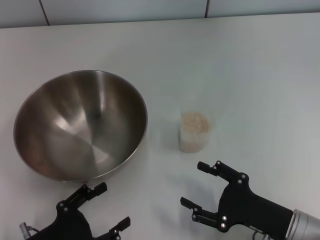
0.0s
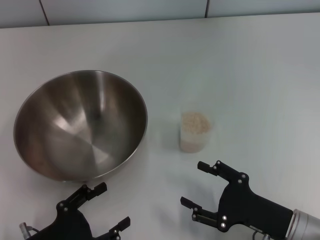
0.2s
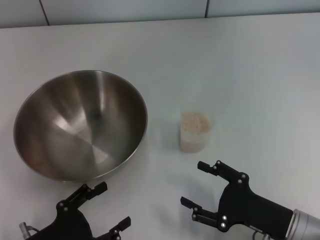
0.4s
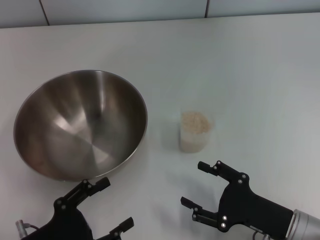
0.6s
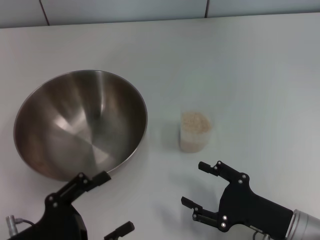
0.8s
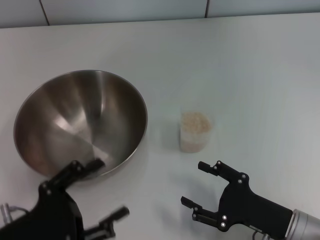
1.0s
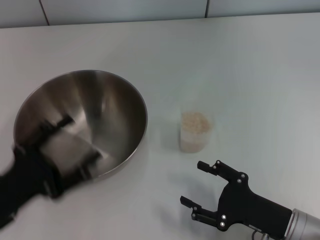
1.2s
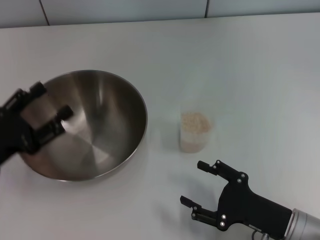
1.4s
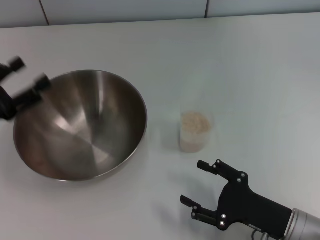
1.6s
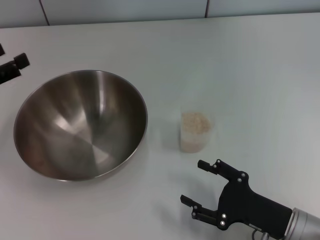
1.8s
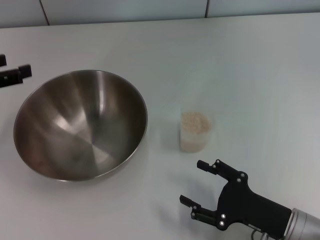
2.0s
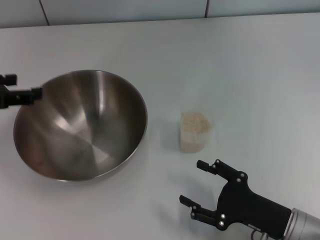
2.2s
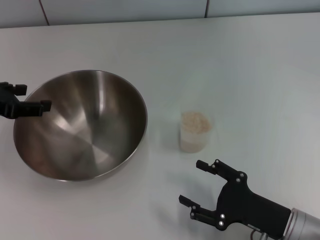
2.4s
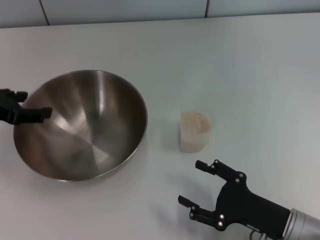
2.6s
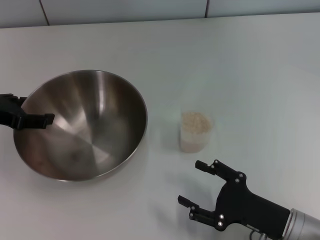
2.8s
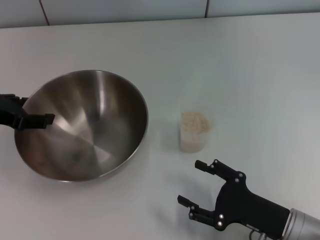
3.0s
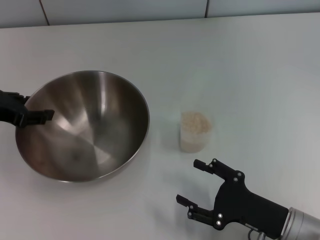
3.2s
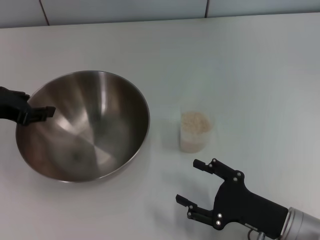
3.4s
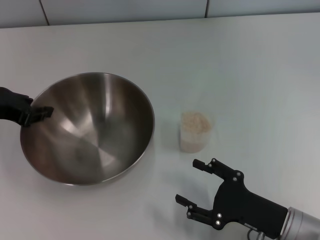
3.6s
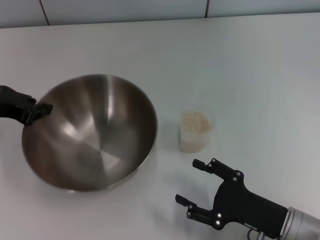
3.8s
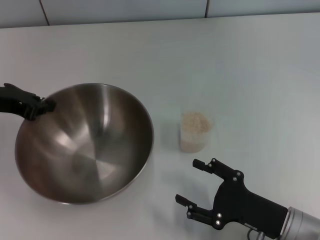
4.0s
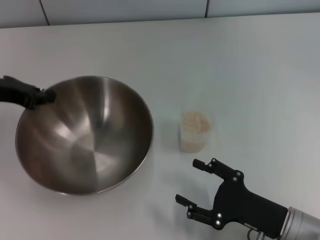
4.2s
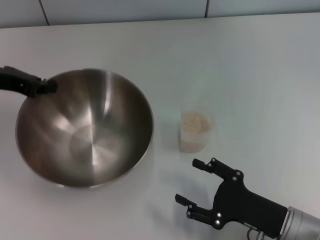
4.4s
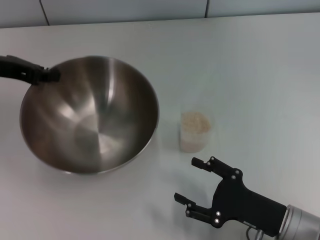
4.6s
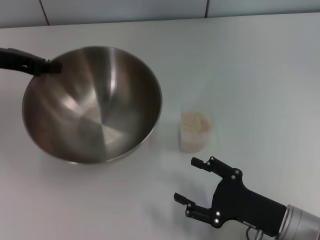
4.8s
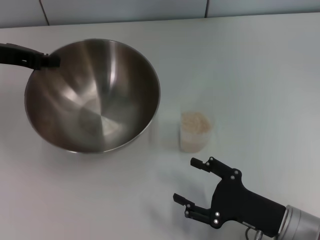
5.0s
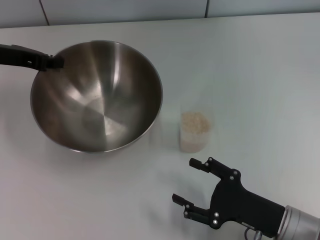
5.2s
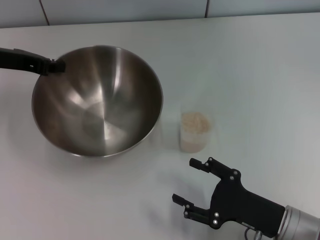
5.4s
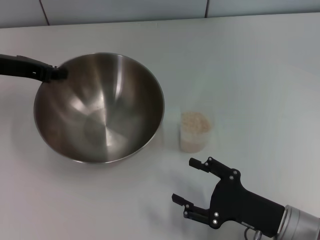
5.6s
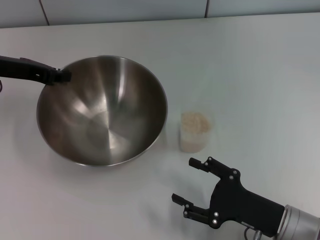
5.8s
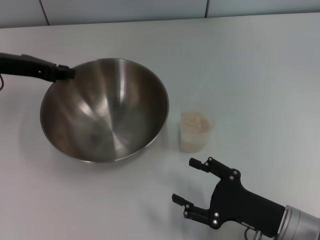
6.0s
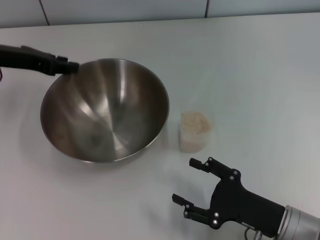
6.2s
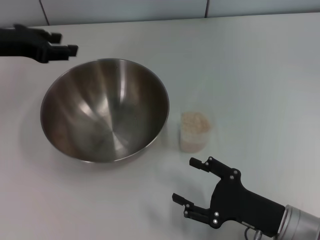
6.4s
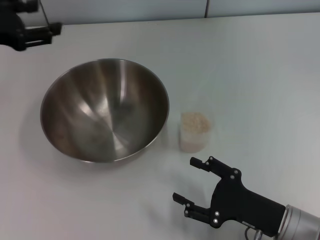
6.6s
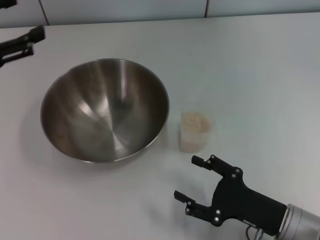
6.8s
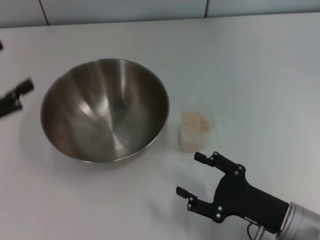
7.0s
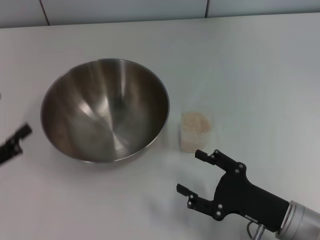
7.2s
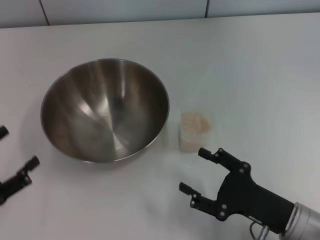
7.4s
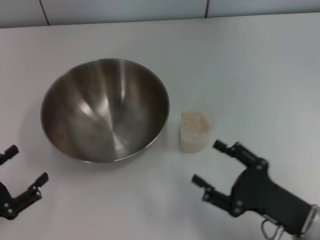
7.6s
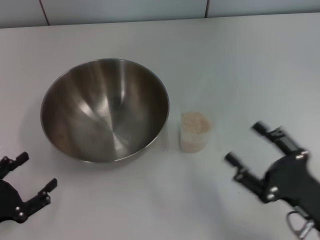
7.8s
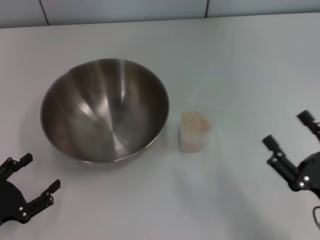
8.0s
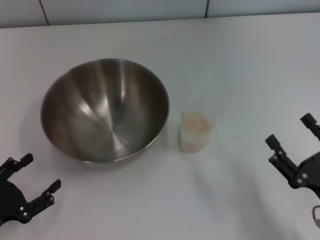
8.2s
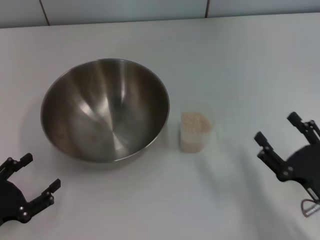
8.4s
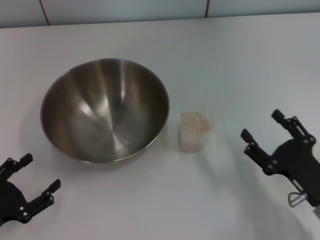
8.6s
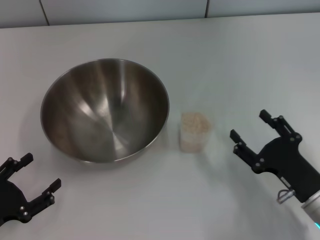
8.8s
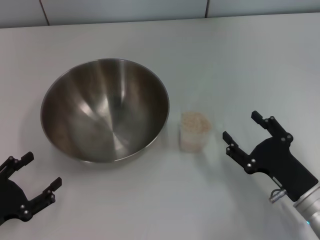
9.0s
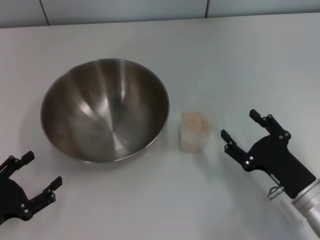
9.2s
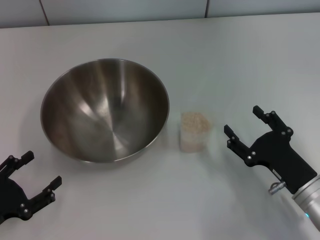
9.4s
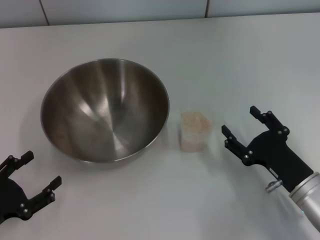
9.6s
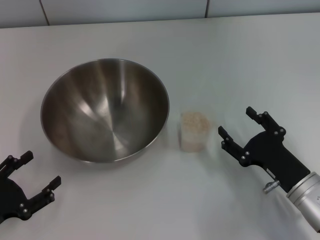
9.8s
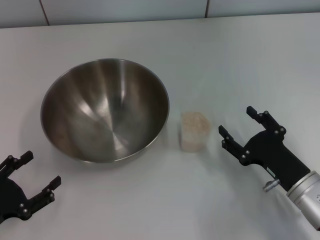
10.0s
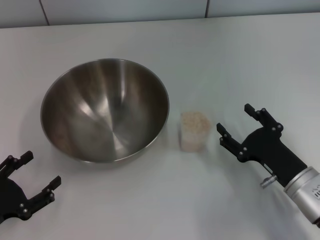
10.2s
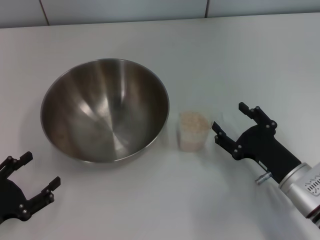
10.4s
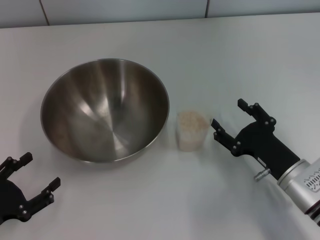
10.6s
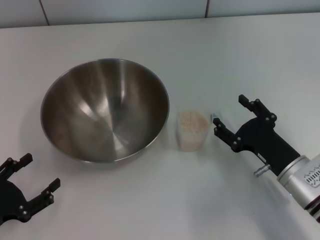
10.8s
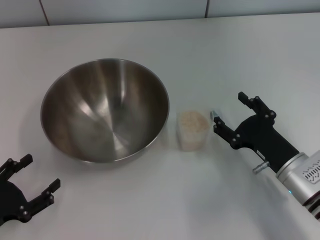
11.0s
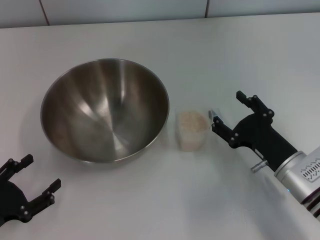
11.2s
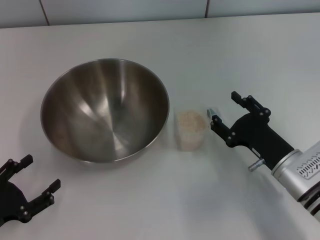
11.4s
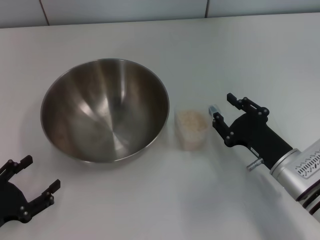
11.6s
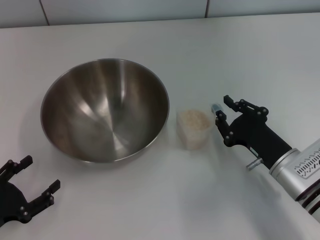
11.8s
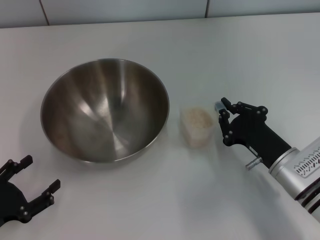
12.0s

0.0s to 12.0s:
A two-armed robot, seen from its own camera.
Task of the whole recording: Place the bowl in the middle of the table with one hand and pour the rice from the grain cup into it with the other hand.
Step, 0.0s to 4.4s: Pick up the bowl with the left gripper.
Step, 4.6s to 6.2s: Place the bowl in the center of view with the left gripper.
0.0s to 1.6s: The left gripper heads forward, upward and to the left, covering about 20 cm.
1.6s to 3.0s: The left gripper travels forward by about 5 cm.
3.0s to 4.4s: The left gripper moves forward, approximately 5 cm, and closes its fingers.
6.0s to 7.6s: The left gripper moves backward and downward, roughly 30 cm, and opens.
9.0s to 10.4s: The grippers make only small movements.
10.4s to 12.0s: The right gripper closes.

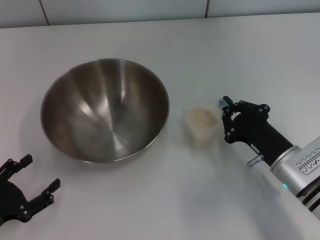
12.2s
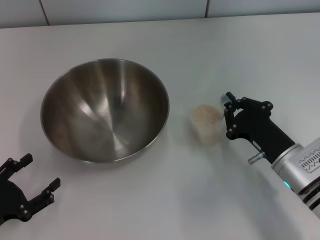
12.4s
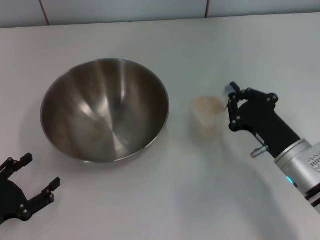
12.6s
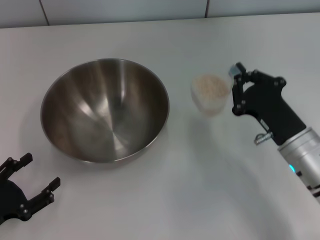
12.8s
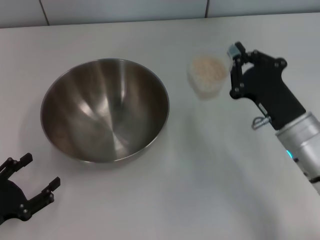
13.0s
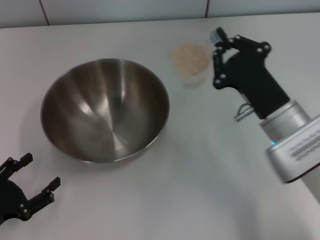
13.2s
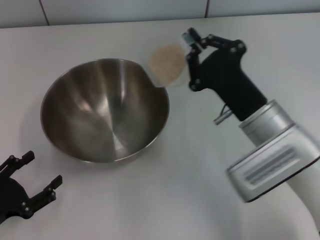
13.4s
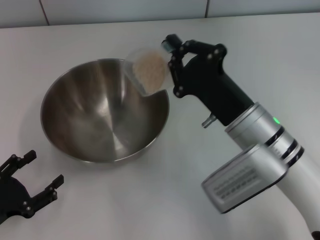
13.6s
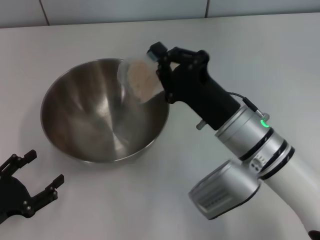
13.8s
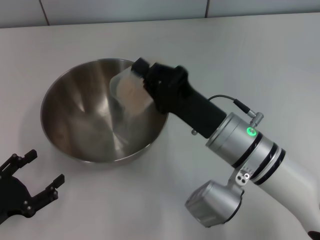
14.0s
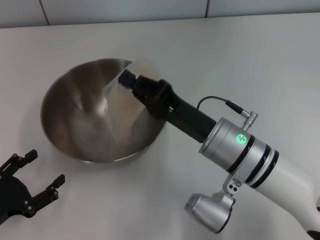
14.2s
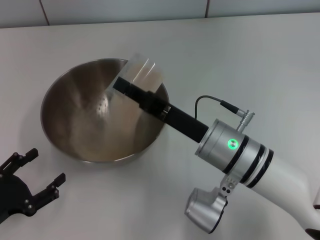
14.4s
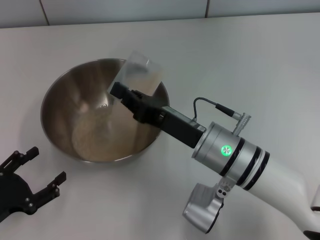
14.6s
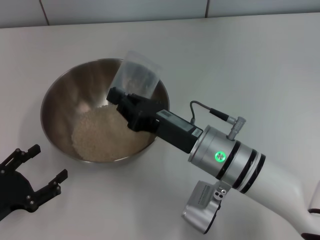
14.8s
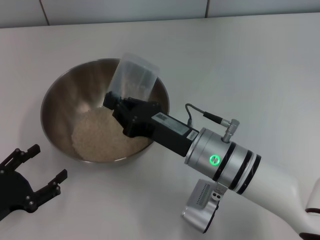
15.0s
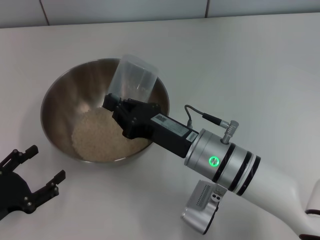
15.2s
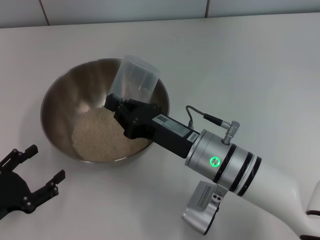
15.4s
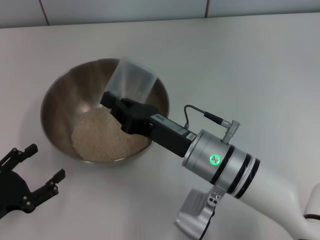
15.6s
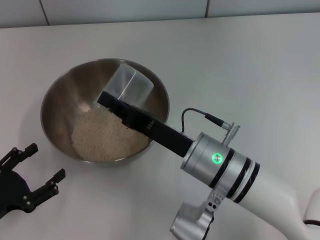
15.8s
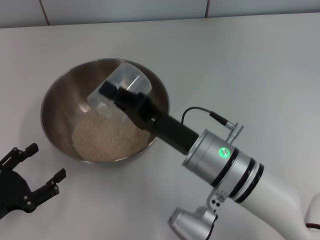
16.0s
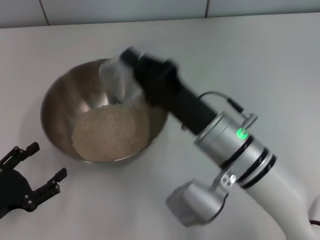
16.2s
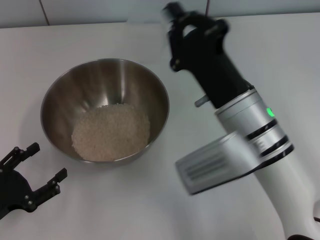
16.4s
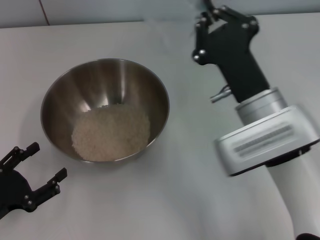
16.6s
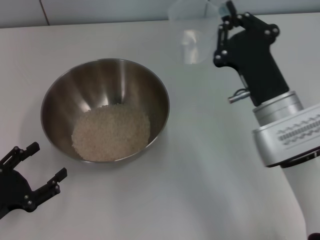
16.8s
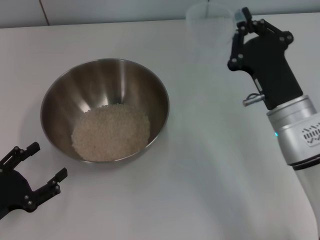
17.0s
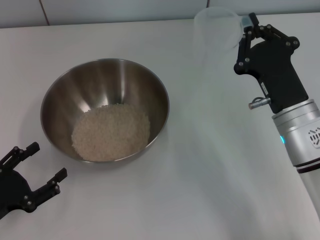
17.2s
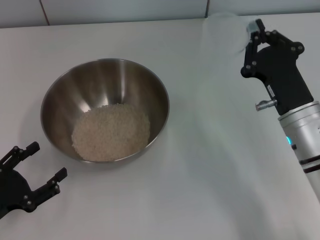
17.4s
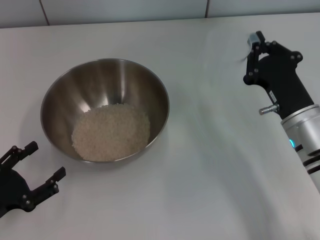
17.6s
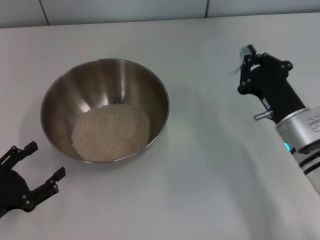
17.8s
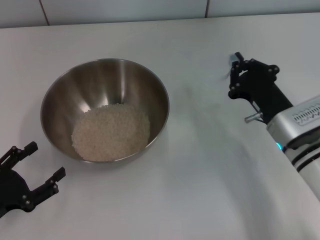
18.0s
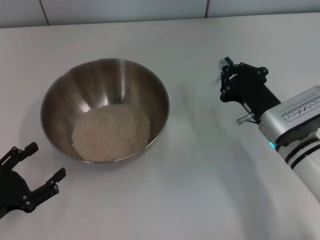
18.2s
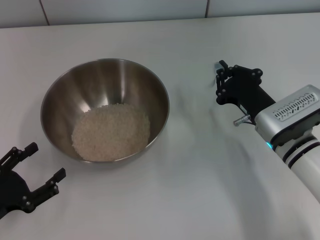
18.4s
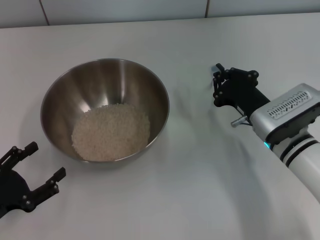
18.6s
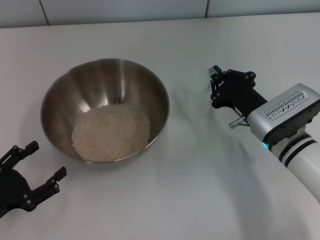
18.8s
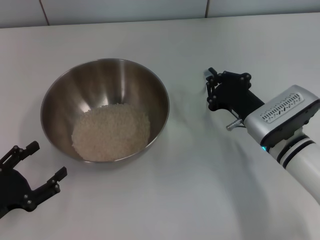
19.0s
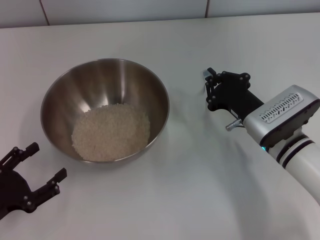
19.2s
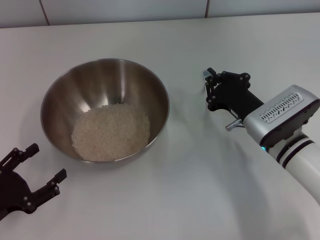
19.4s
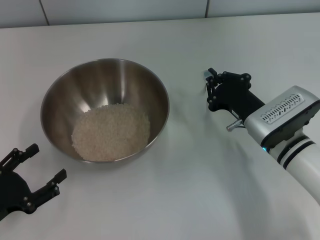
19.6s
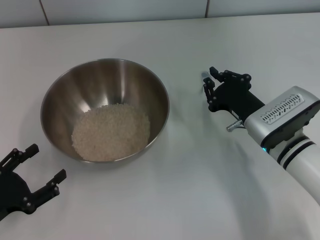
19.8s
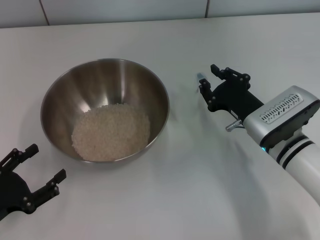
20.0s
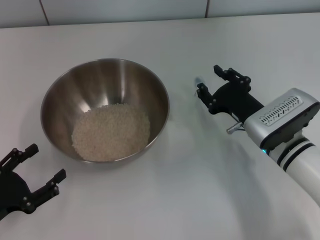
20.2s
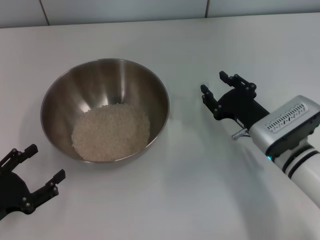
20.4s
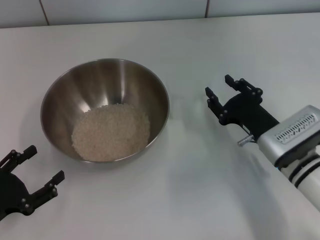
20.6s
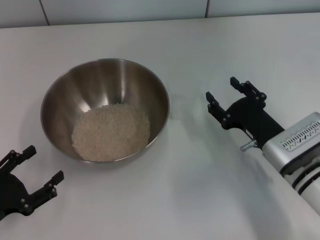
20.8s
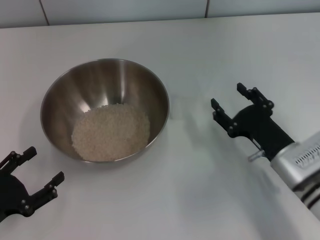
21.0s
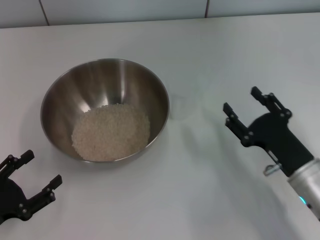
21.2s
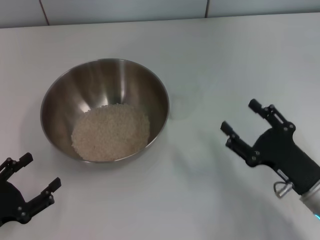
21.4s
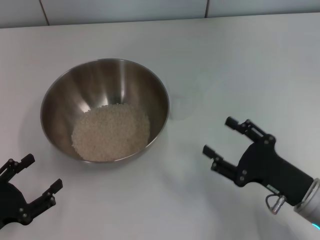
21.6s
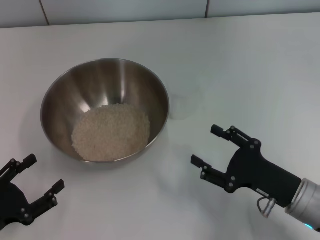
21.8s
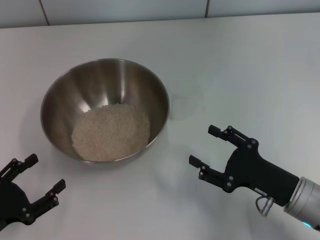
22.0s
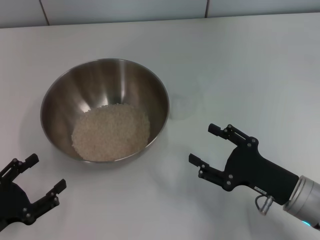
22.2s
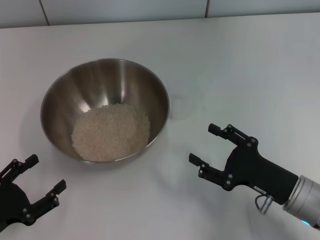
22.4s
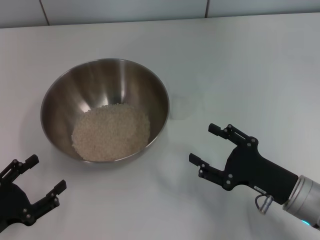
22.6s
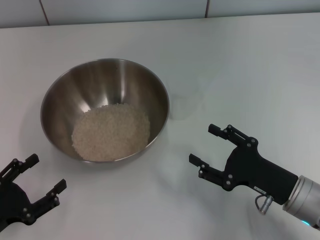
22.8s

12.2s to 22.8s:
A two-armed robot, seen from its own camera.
Task of the whole recording: Place the bowl in the middle of the table with one hand and pour the rice from the grain cup into it with the other hand.
Step, 13.2s to 16.4s: Pour the rice from the cup into the bowl with the right gripper.
Step, 16.6s to 21.0s: Place the cup on the table with the right gripper.
12.2s to 13.8s: The right gripper travels to the left and upward by roughly 10 cm.
15.2s to 16.8s: The right gripper heads to the right, covering about 5 cm.
16.8s to 18.2s: The right gripper heads downward, covering roughly 5 cm.
18.2s to 19.8s: The grippers make only small movements.
19.8s to 21.2s: The right gripper moves backward, roughly 10 cm, and opens.
